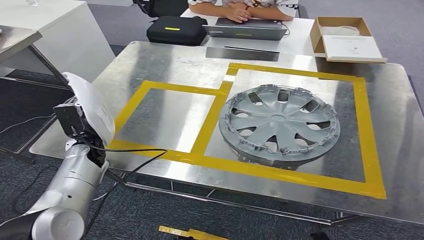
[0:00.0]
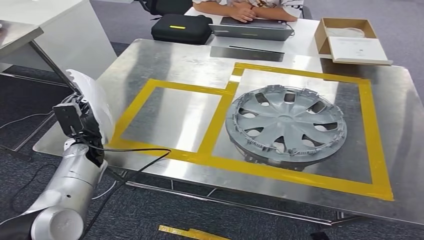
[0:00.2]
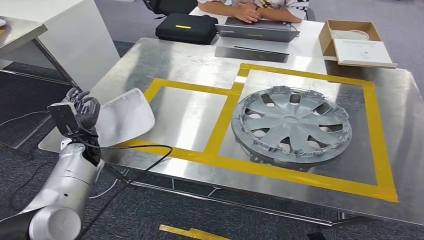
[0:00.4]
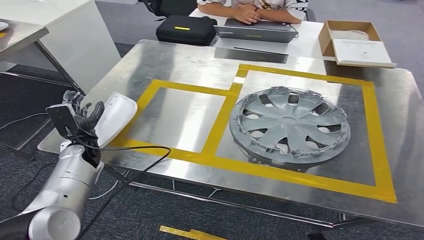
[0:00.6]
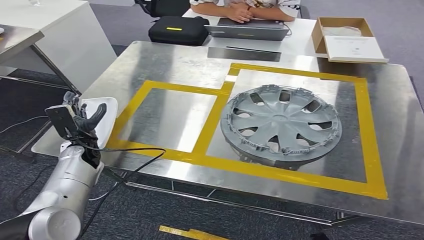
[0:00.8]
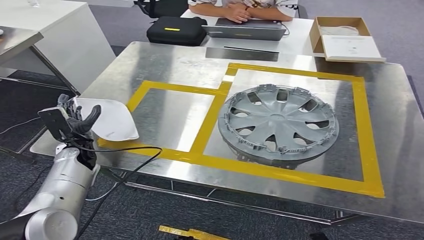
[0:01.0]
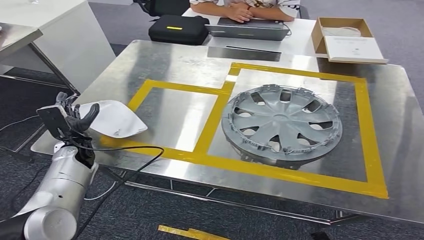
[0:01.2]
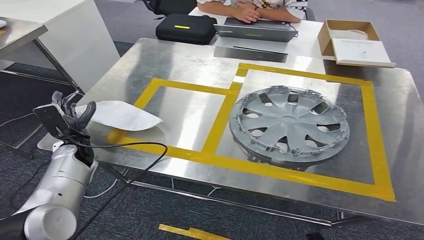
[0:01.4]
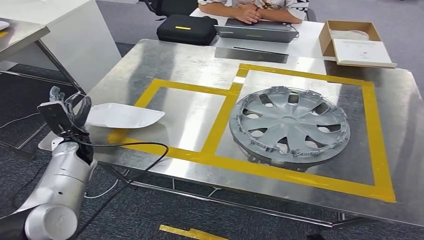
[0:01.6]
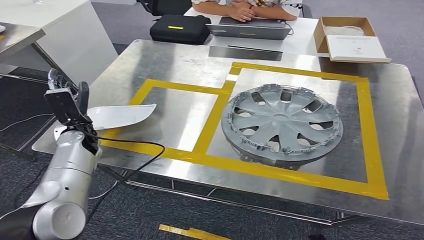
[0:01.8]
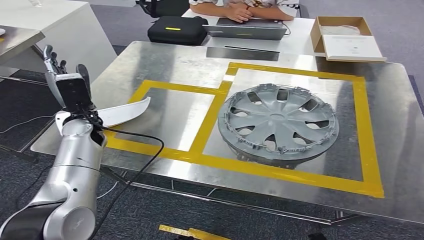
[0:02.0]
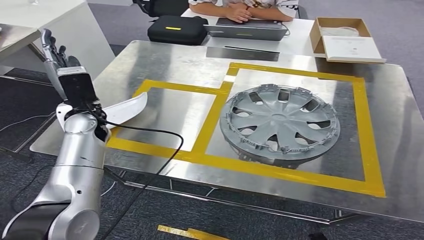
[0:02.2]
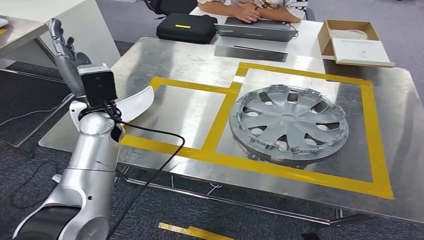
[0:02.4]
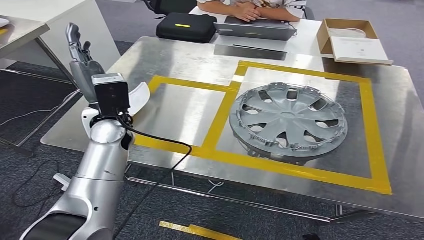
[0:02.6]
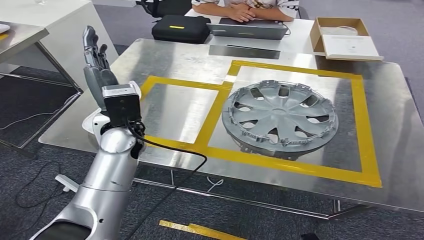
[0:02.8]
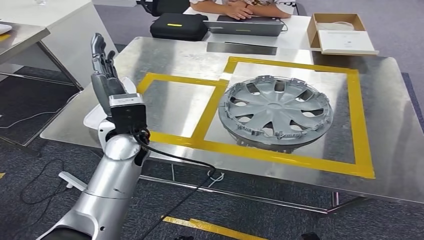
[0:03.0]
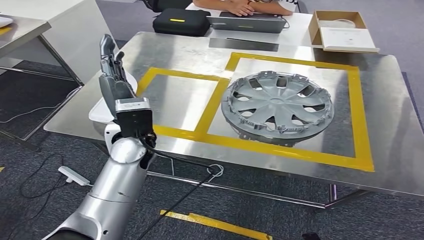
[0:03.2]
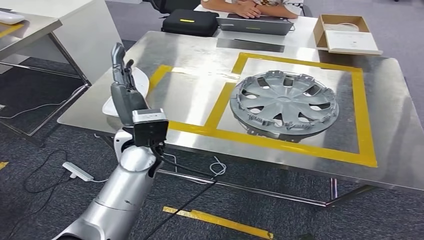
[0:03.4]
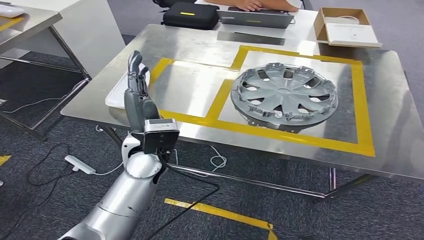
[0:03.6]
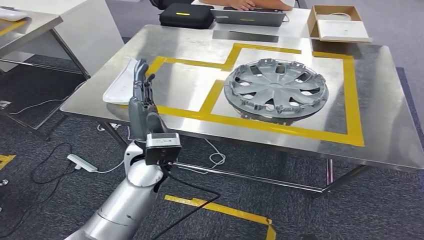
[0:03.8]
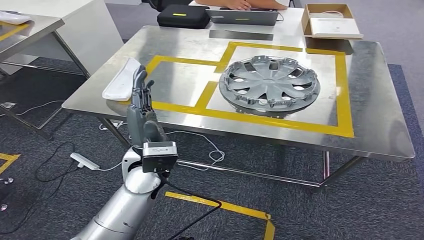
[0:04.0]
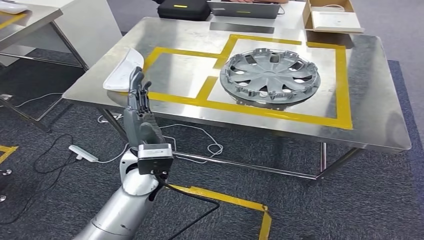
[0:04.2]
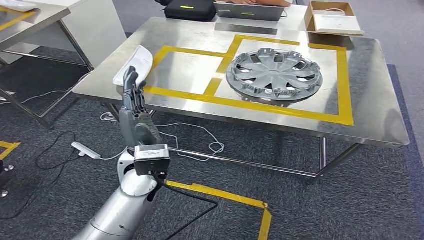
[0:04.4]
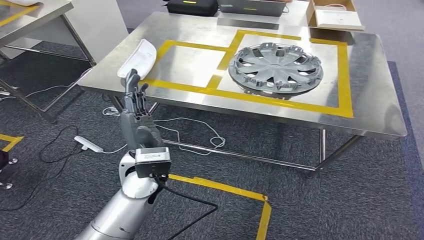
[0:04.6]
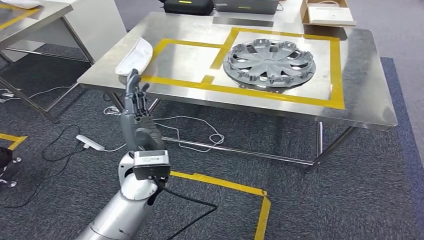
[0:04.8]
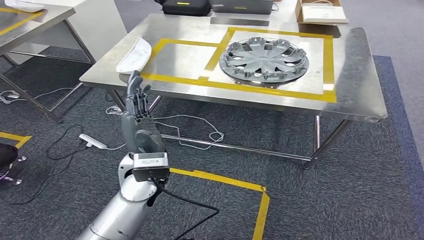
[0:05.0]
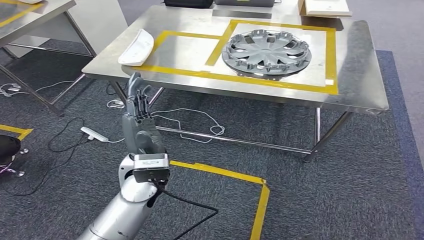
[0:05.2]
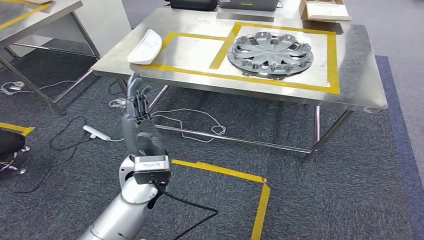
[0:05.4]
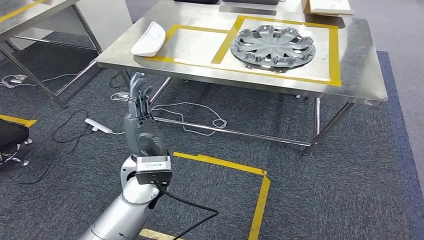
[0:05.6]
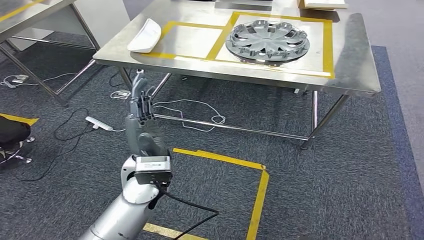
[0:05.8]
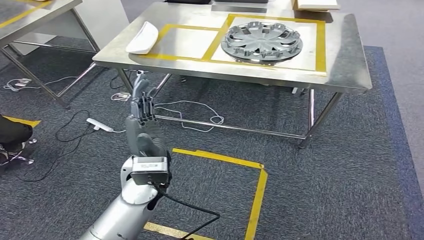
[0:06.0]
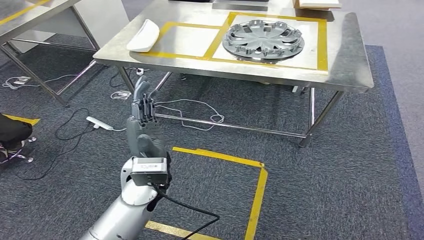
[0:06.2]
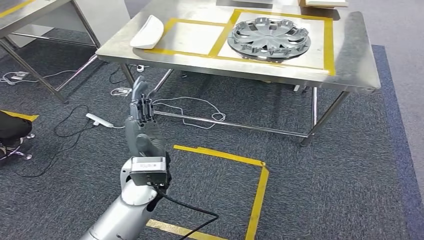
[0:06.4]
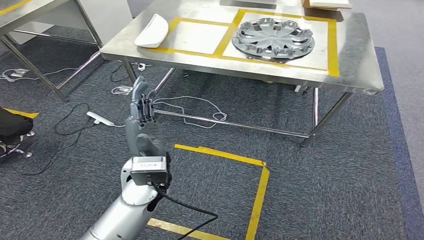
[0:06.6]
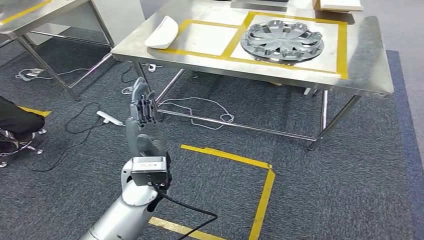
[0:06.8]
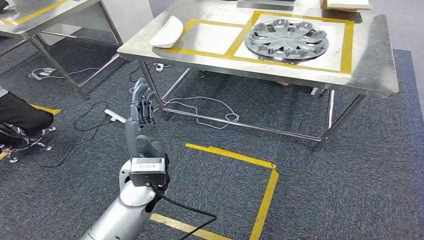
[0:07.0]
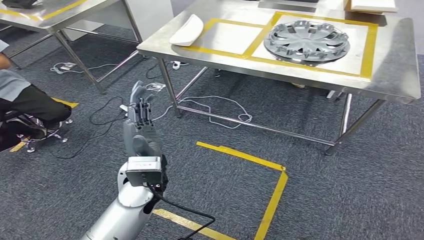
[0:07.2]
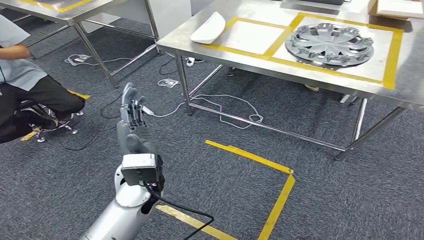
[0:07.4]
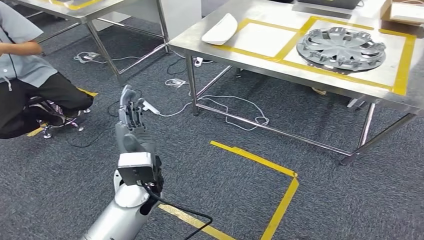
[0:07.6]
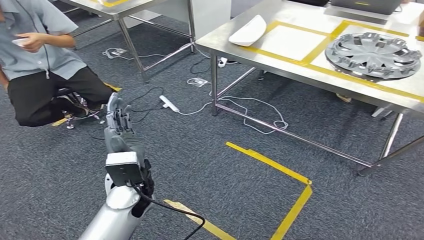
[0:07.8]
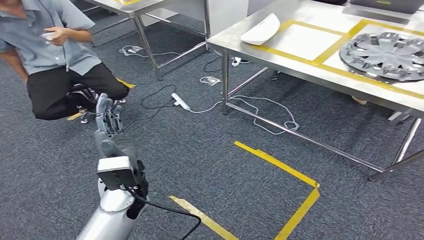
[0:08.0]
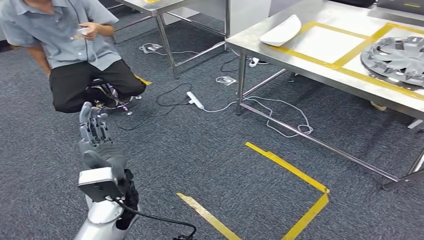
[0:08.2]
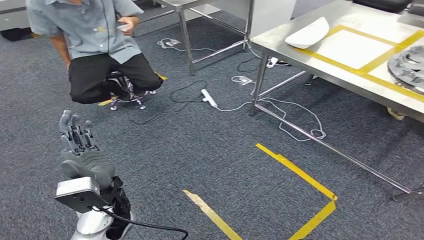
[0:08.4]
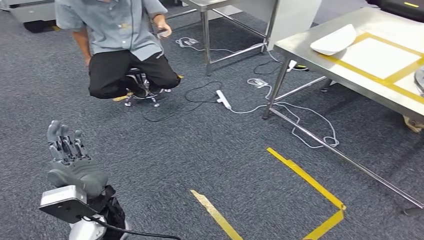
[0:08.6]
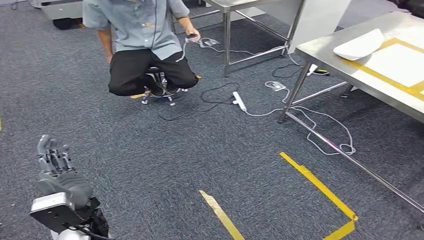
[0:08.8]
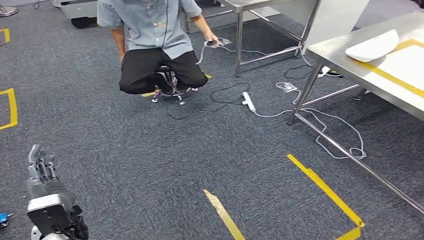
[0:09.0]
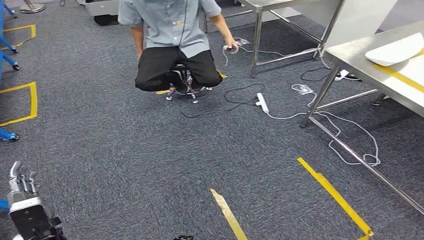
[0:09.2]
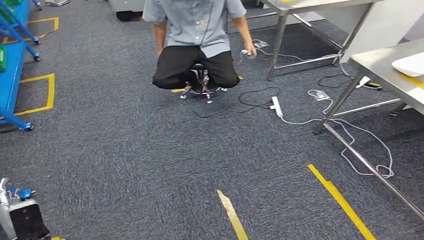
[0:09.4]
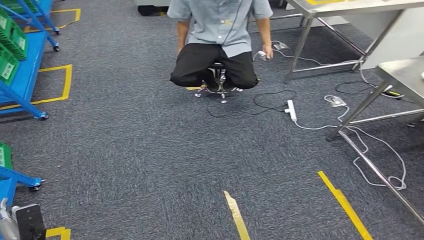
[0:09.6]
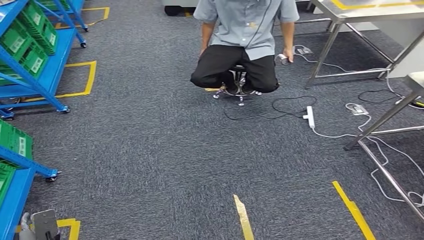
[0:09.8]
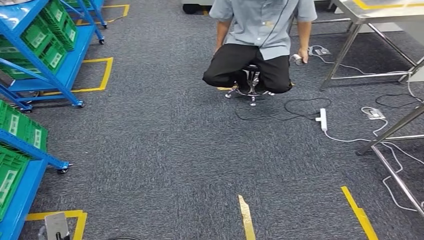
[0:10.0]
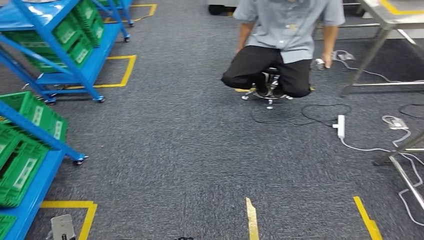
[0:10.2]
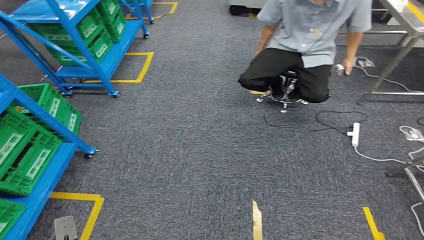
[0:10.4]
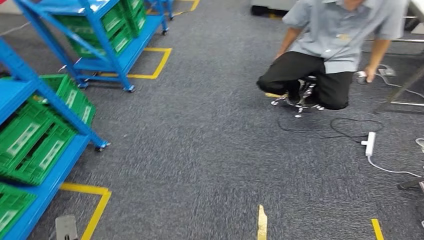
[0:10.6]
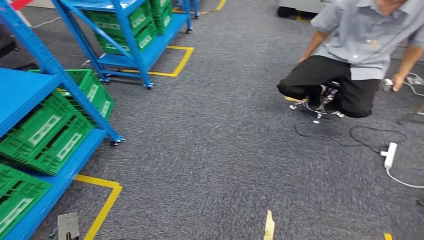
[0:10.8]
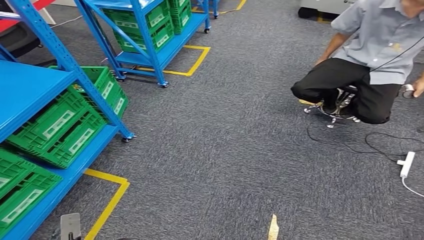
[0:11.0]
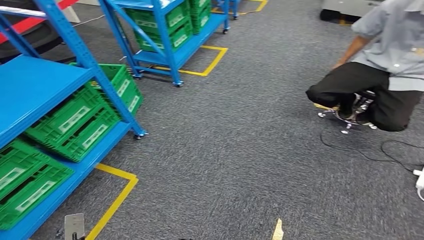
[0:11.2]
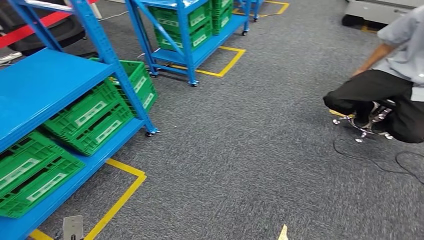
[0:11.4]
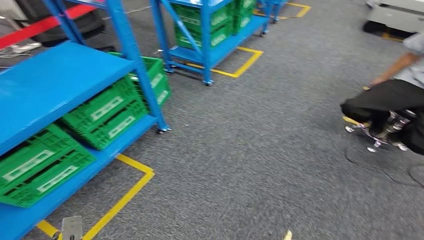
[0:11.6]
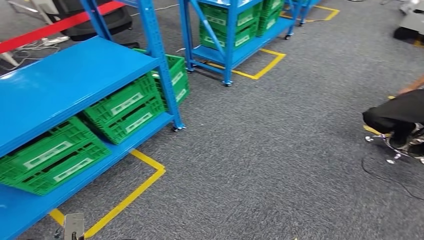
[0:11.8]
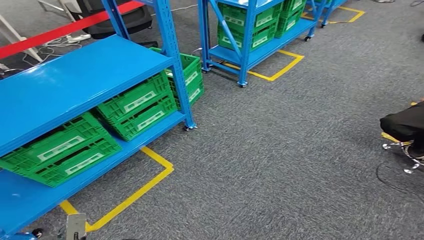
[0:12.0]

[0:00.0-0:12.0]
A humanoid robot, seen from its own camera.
Step, 0:00.0 to 0:04.0: Insert the small component into the corresponding slot on the workbench.

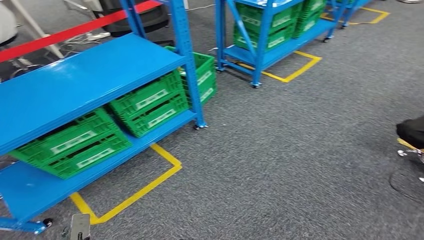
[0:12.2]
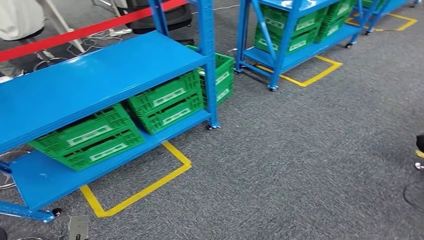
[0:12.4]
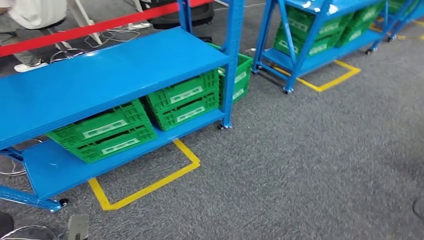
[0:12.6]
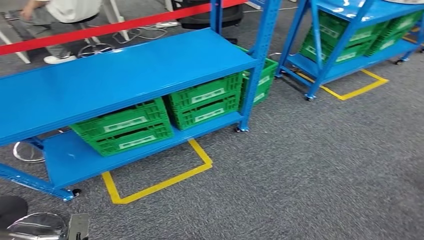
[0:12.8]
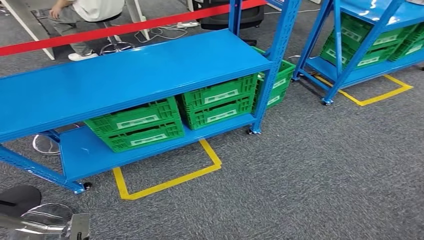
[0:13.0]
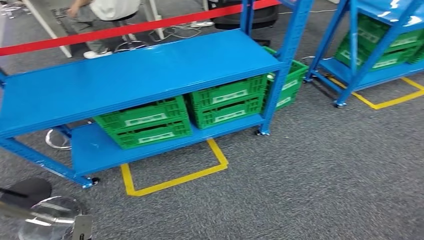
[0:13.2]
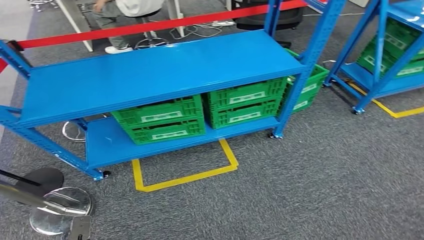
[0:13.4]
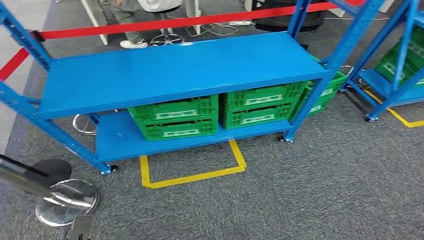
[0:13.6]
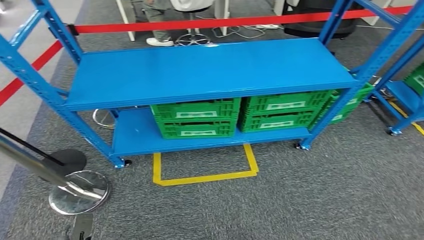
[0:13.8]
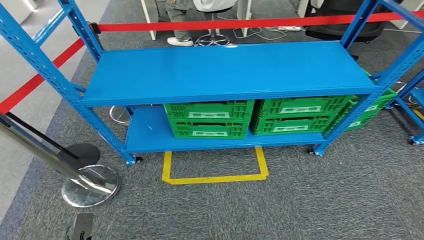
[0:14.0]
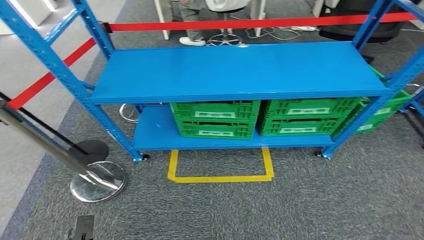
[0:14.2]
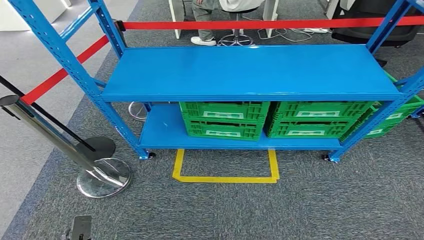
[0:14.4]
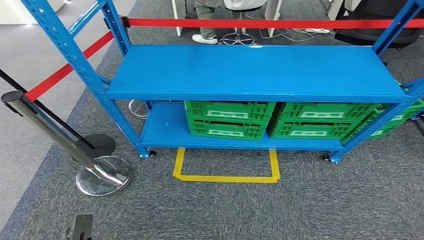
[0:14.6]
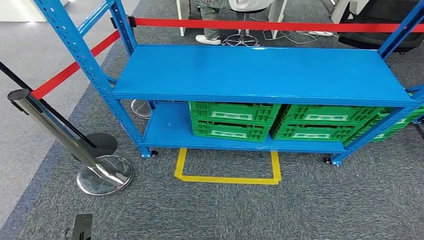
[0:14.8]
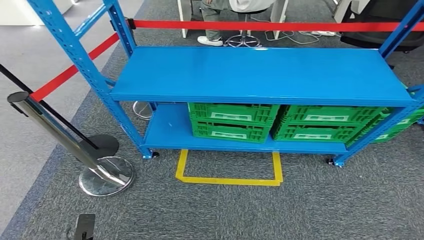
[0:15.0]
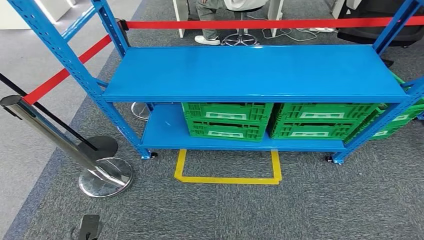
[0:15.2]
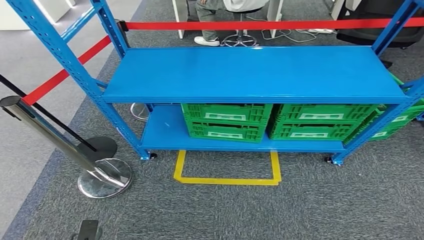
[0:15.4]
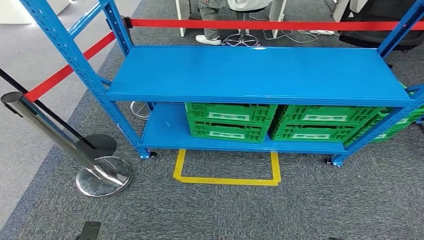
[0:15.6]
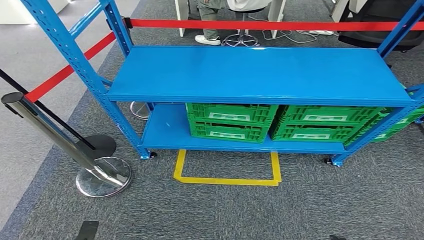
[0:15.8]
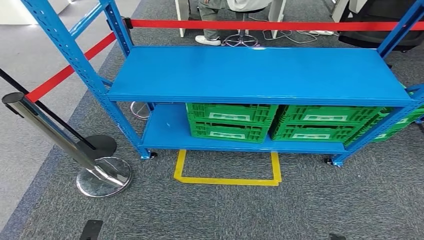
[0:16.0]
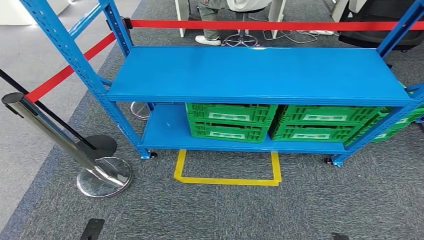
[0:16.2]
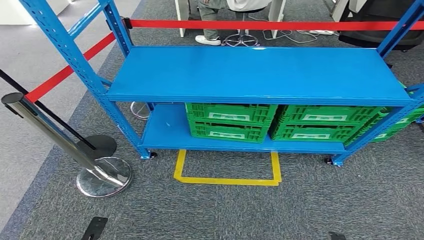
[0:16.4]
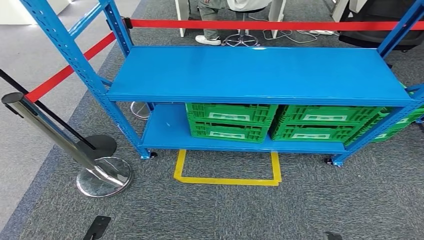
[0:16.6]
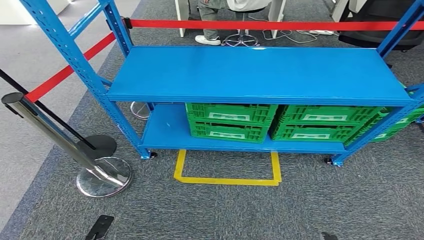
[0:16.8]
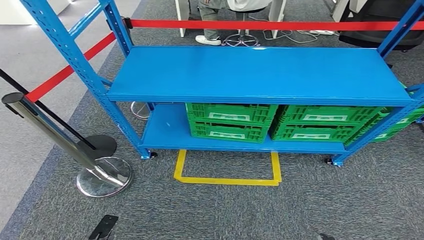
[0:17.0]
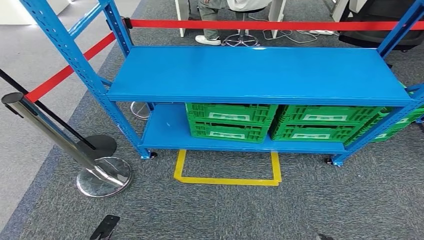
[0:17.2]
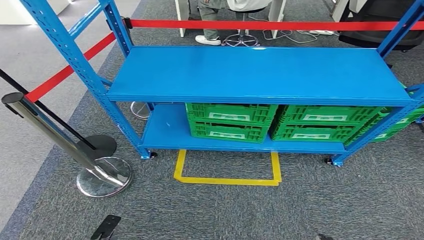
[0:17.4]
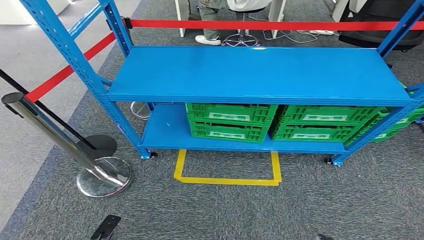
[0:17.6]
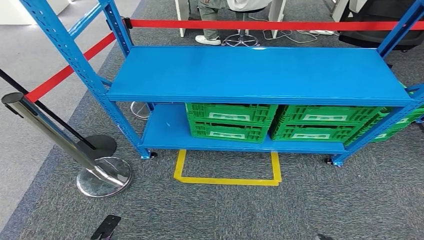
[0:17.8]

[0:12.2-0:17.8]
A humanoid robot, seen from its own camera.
Step, 0:12.2 to 0:17.8: Return to the initial position at the workbench.
0:15.0 to 0:16.4: The right hand shifts about 5 cm to the right. The left hand moves about 5 cm.
